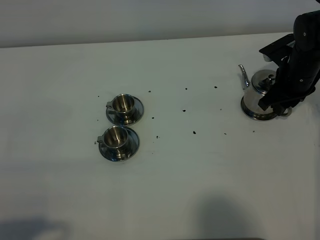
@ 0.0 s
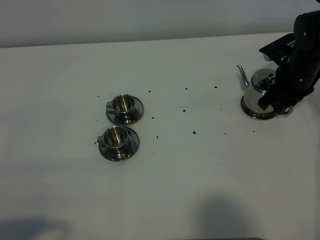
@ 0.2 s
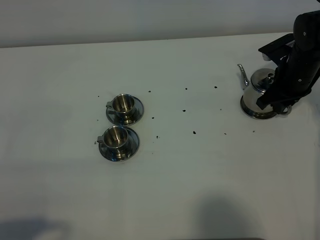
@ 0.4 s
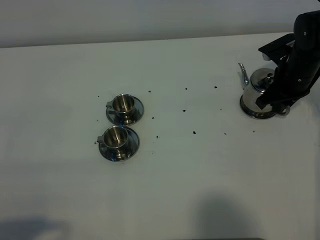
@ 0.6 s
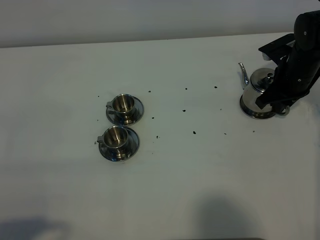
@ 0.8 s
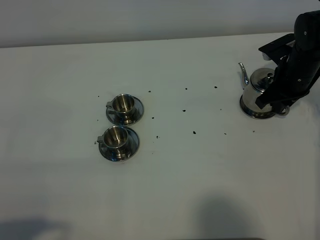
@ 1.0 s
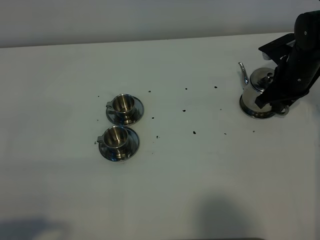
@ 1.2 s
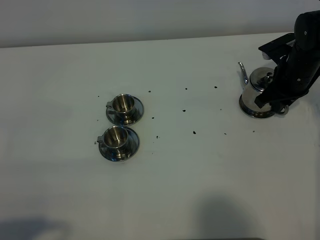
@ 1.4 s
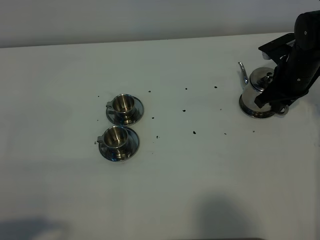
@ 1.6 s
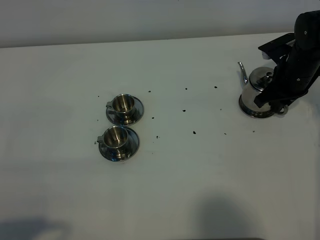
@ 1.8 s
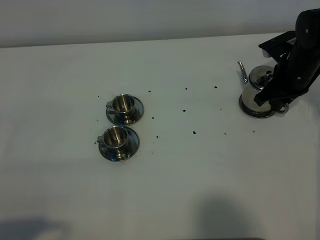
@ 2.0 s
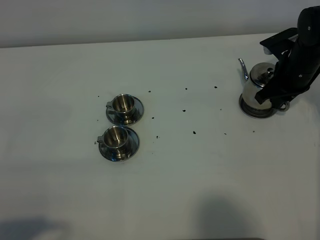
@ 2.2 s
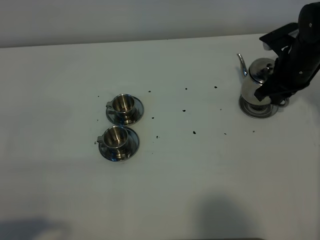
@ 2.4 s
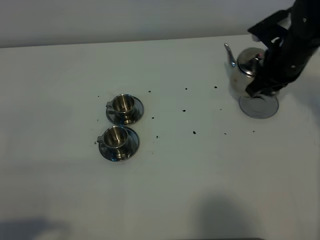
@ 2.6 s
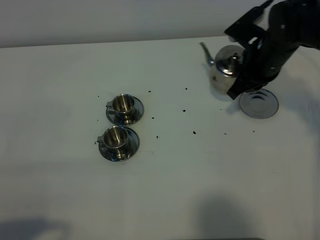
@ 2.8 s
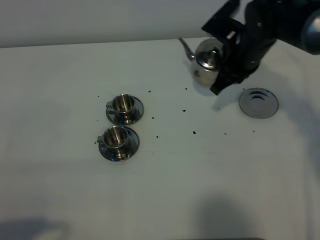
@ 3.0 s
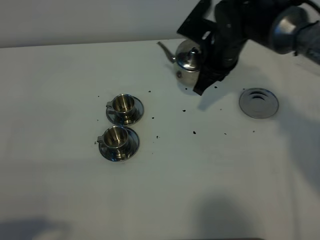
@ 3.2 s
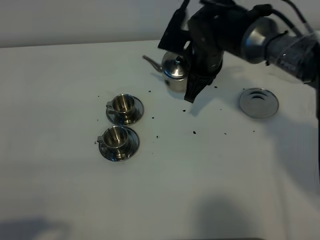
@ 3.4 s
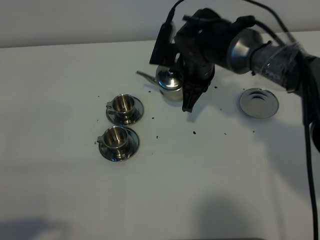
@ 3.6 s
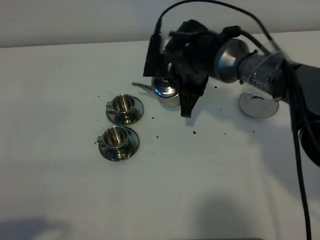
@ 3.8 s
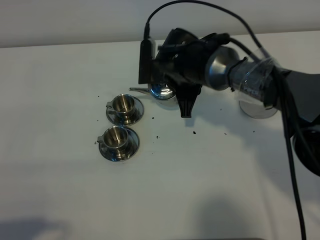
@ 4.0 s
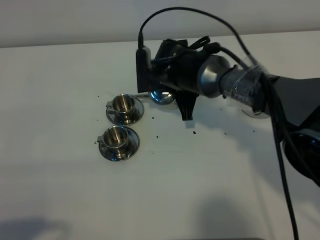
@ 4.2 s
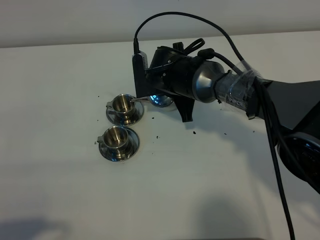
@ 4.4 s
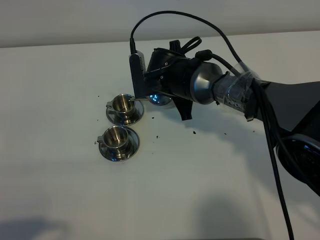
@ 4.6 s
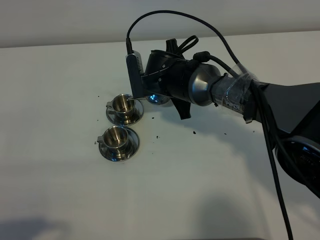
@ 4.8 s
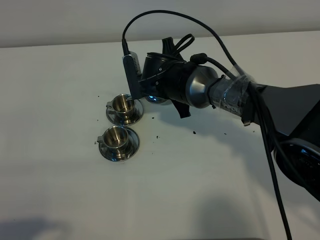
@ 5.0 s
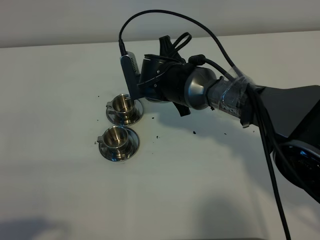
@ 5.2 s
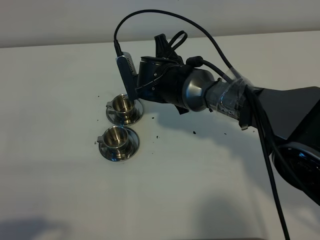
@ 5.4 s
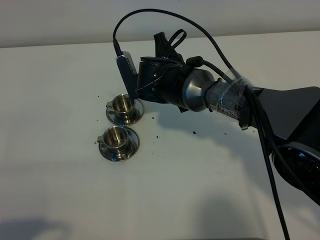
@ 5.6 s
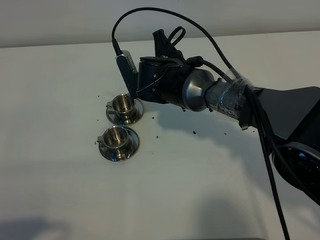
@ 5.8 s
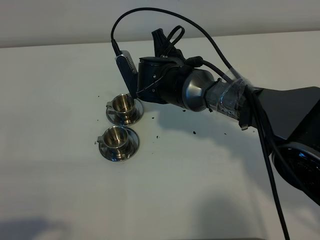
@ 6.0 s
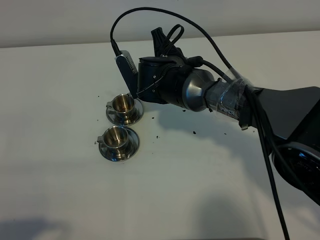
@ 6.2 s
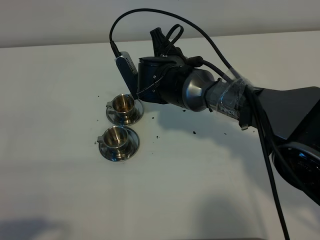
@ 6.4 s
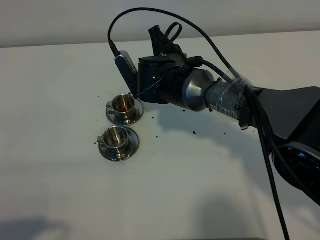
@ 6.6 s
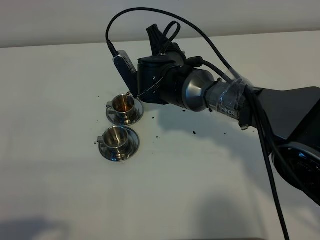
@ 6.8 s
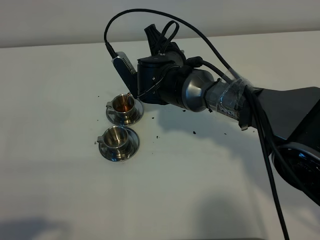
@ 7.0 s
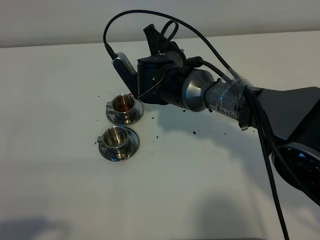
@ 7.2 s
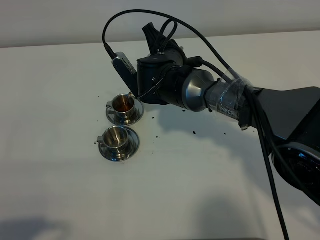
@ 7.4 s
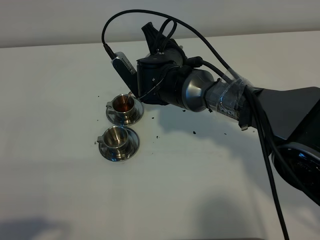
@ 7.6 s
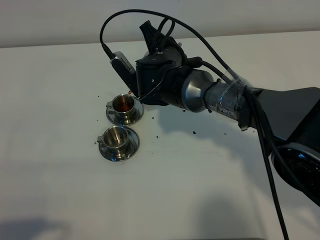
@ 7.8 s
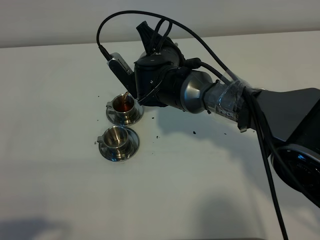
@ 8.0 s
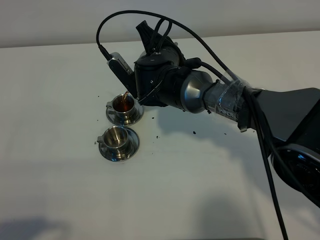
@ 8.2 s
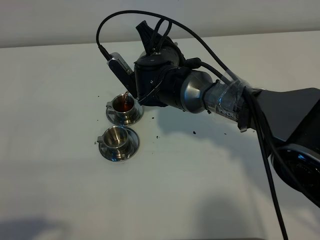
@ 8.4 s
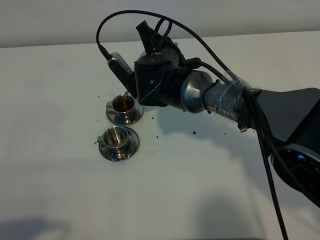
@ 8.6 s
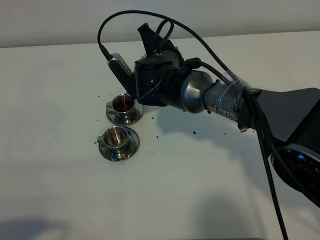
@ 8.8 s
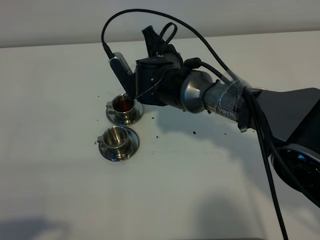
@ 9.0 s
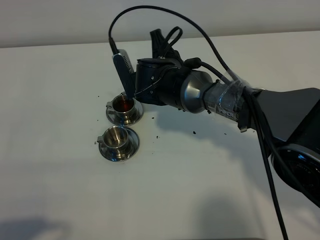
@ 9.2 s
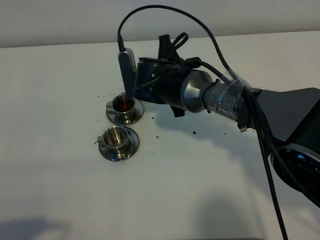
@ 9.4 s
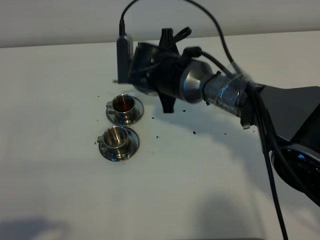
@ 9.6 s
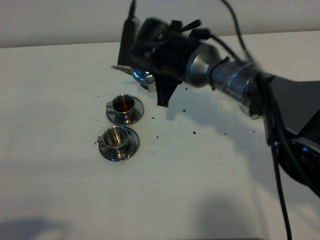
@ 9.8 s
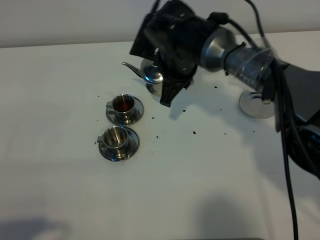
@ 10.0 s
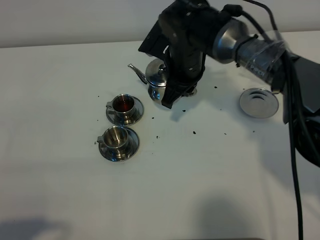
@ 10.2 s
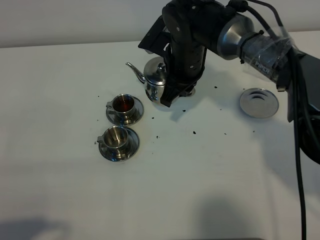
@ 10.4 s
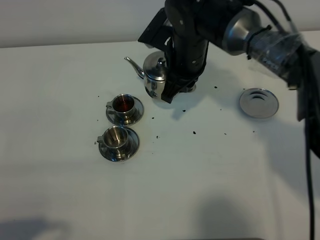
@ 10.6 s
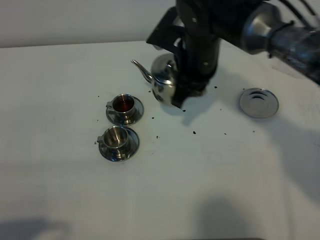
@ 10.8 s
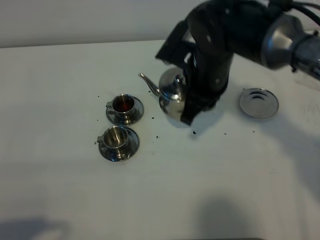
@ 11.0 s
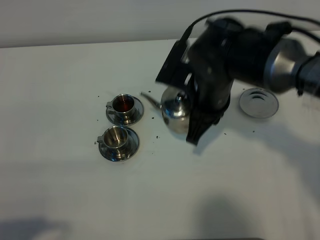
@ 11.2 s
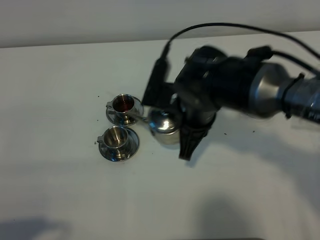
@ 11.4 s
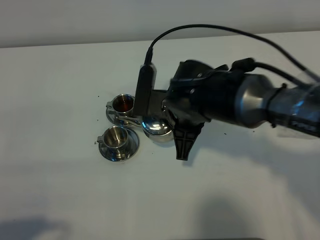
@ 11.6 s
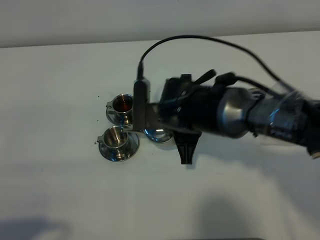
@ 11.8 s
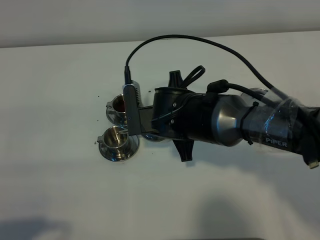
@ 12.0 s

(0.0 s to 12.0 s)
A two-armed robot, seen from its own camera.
Task of the whole recording: grasp the stainless steel teapot and pour the tea into the two stainless steel teacups one by one, put the stainless steel teapot back in its original place.
Step, 0.0 s - 2.2 s: Pick up the teapot with the right gripper.
0.0 s - 1.6 s: The right gripper closes up.
1.6 s - 3.0 s: The right gripper is displaced to the left and upward by some 15 cm.
3.0 s - 4.4 s: The right gripper is displaced to the left and downward by approximately 15 cm.
6.0 s - 9.0 s: The grippers make only small movements.
9.0 s - 10.4 s: The right gripper moves some 5 cm.
10.4 s - 12.0 s: The right gripper travels backward by approximately 10 cm.

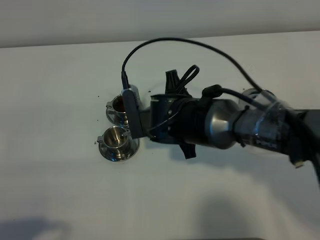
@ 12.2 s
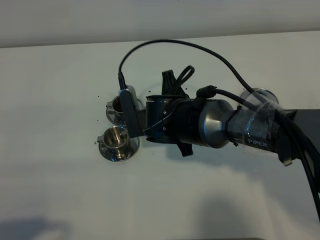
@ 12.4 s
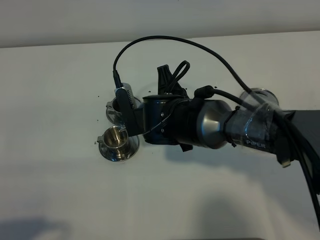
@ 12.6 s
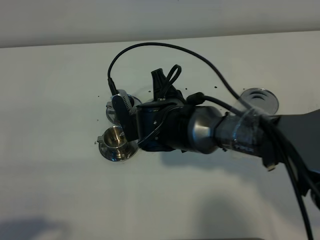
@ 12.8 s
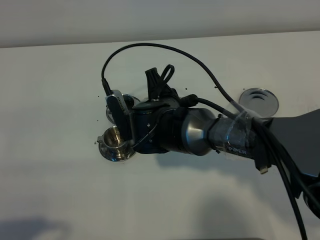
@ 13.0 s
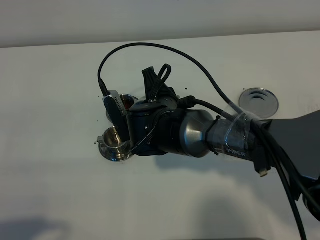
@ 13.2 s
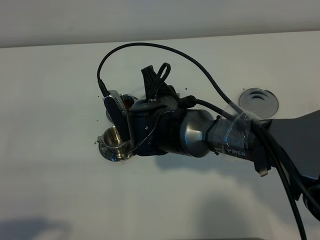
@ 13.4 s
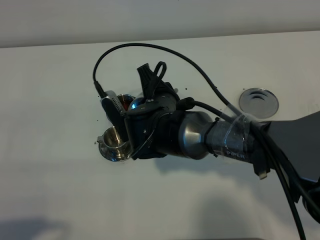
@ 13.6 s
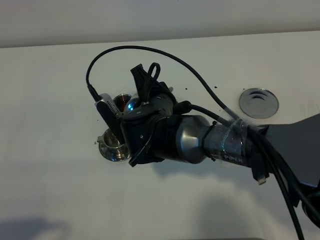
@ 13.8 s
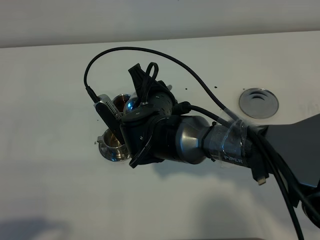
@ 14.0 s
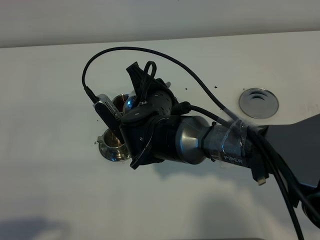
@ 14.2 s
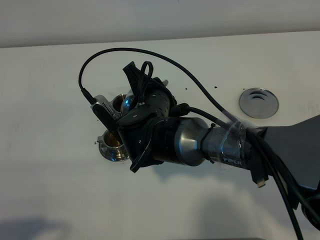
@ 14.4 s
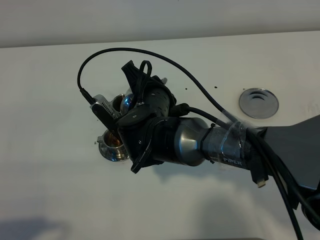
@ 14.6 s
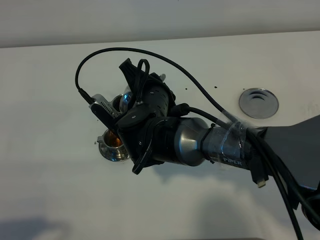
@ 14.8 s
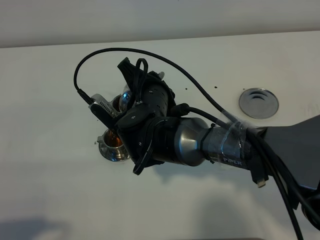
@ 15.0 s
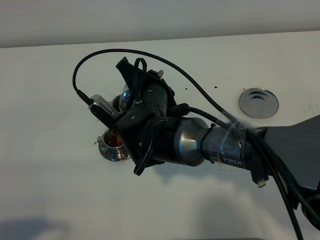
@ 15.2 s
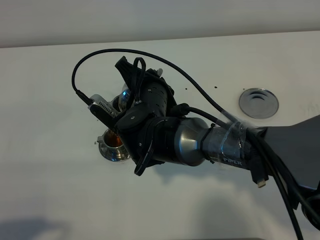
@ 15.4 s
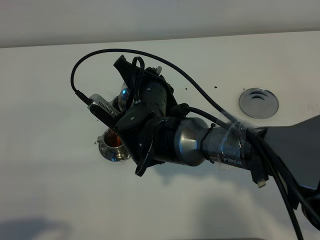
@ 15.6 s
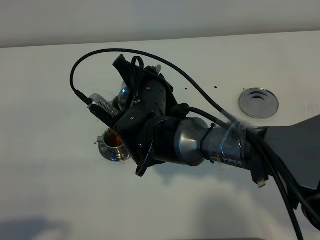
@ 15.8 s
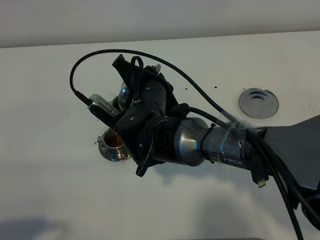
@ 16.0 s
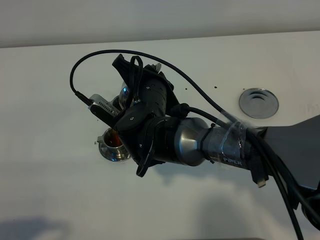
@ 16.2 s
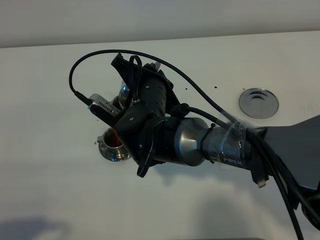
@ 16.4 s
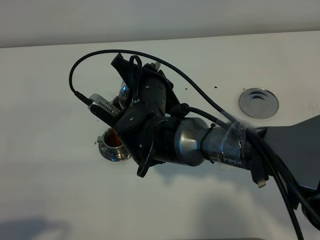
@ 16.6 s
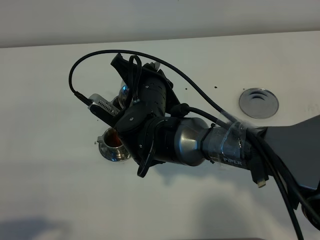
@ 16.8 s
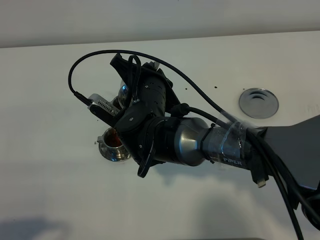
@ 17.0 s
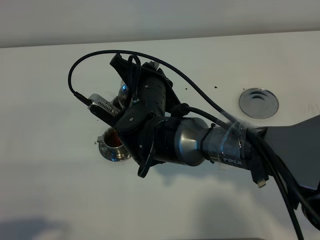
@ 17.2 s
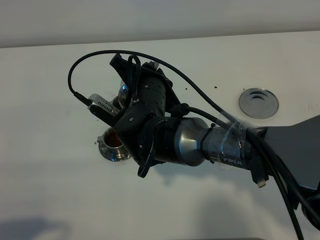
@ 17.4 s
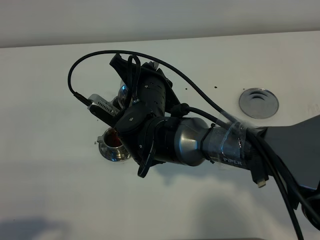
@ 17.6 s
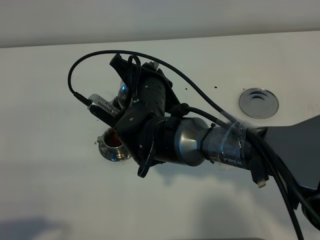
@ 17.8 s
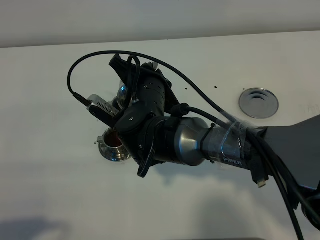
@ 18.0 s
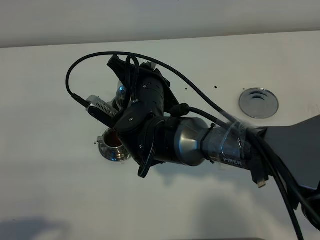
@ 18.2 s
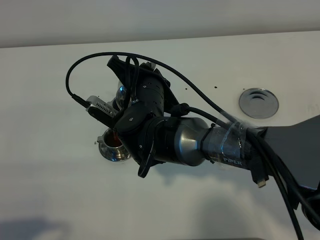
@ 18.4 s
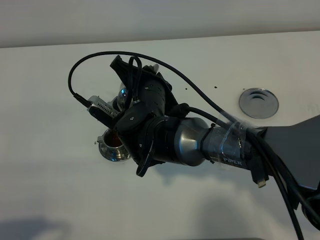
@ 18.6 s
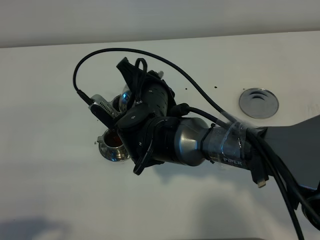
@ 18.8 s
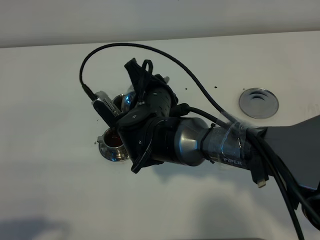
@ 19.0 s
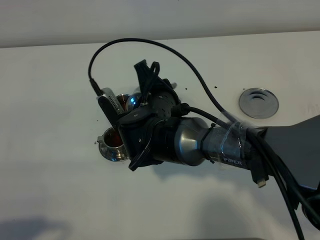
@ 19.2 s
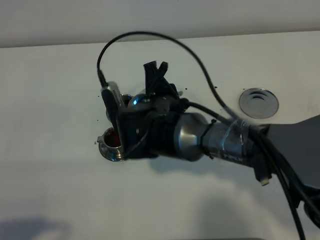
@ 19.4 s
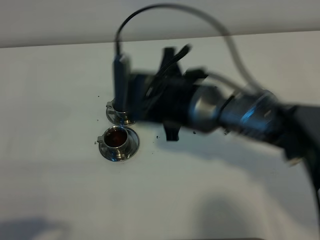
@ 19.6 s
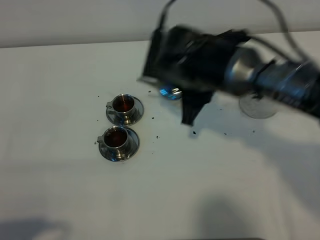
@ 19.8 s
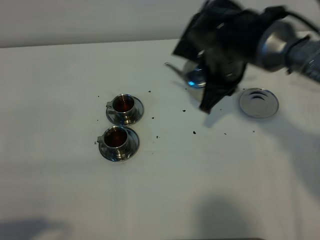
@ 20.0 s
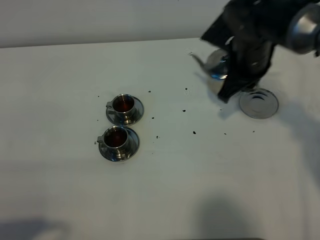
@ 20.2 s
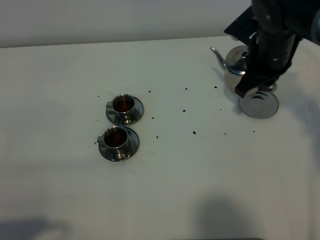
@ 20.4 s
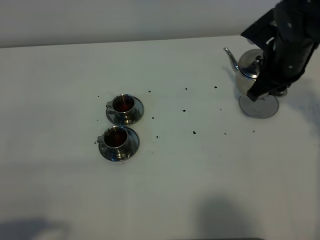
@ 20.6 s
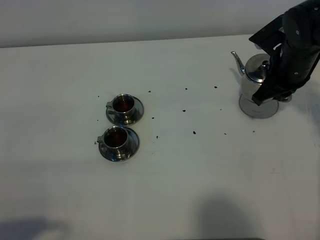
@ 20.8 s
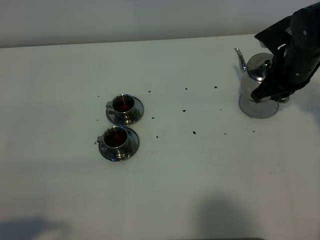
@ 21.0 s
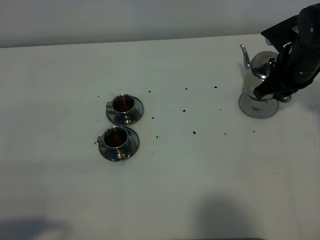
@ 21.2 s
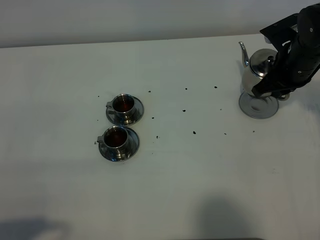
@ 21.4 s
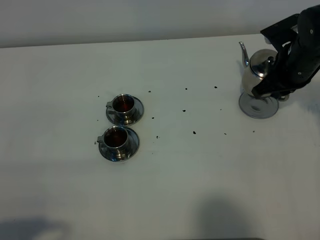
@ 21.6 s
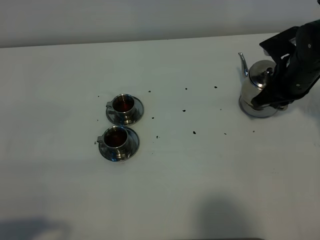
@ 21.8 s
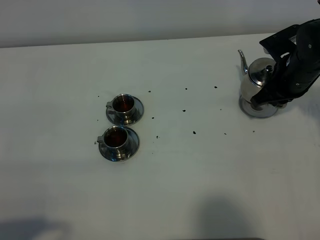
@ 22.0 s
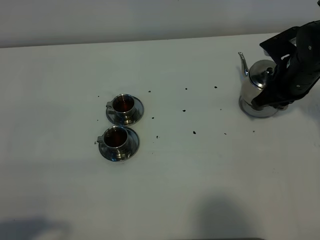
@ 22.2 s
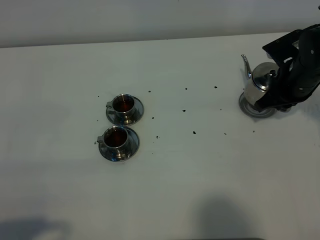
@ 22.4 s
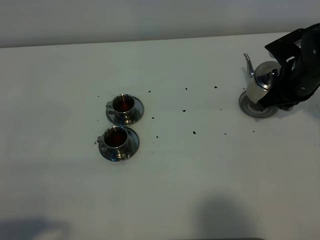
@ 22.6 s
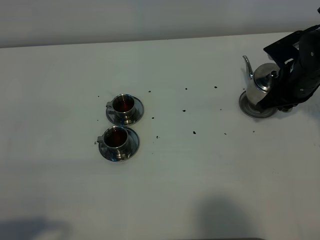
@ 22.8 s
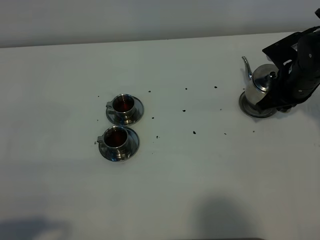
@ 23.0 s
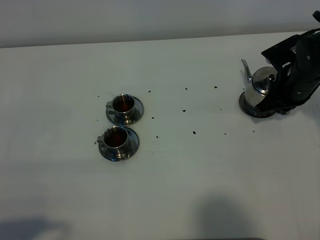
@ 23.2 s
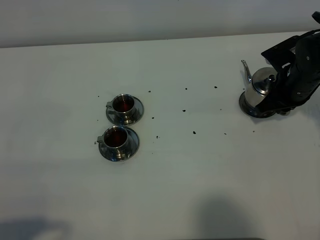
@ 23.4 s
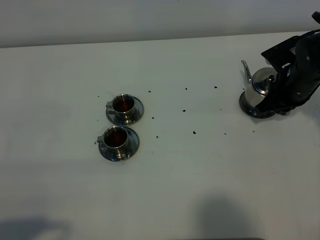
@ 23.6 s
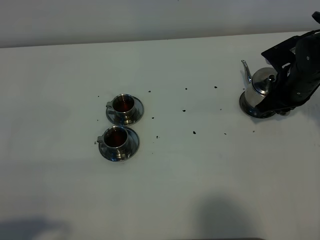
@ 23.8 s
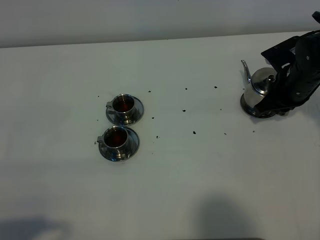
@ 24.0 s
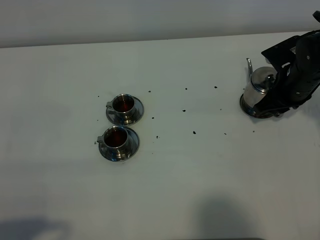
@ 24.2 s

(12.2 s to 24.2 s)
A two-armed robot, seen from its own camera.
Task of the whole recording: grasp the stainless steel teapot and pour the tea into the two stainless steel teacups one by one, put the stainless steel teapot back in its original place.
Step, 12.2 s - 19.0 s: Pour tea into the teacup with the right gripper.
13.8 s - 15.2 s: There are only small adjustments of the grippers.
15.2 s - 16.6 s: The grippers move only a little.
16.6 s - 18.2 s: Both grippers stay put.
18.2 s - 19.8 s: The right gripper shifts approximately 10 cm to the right.
19.8 s - 21.2 s: The right gripper heads to the right, covering about 20 cm.
21.2 s - 22.6 s: The grippers make only small movements.
22.6 s - 24.2 s: The right gripper opens its fingers.
